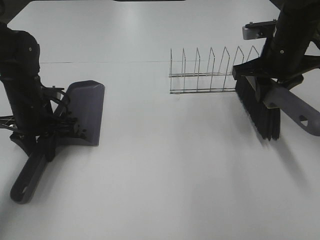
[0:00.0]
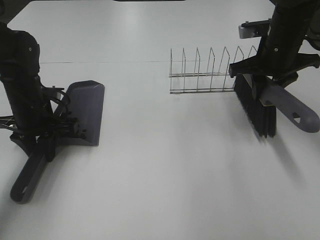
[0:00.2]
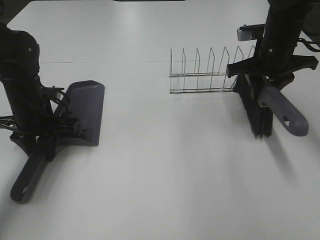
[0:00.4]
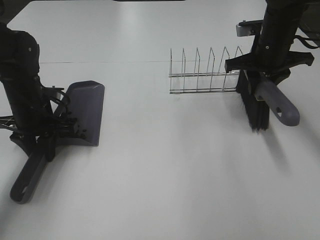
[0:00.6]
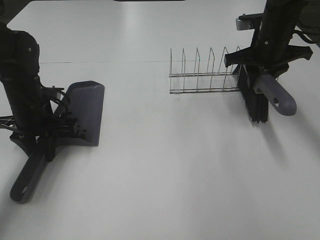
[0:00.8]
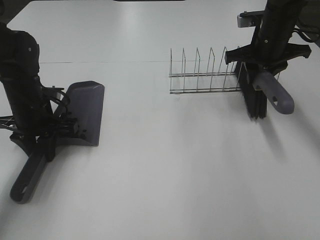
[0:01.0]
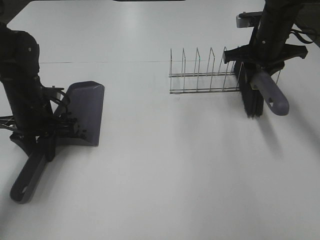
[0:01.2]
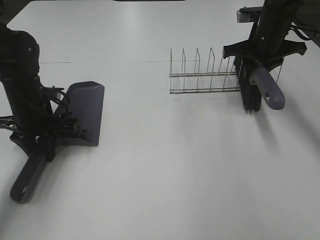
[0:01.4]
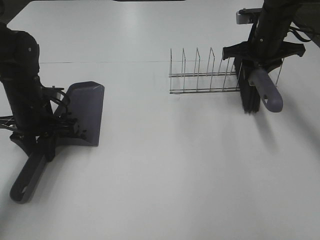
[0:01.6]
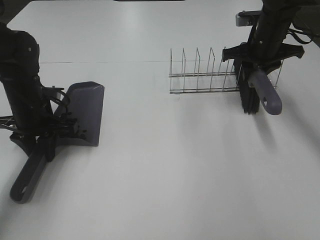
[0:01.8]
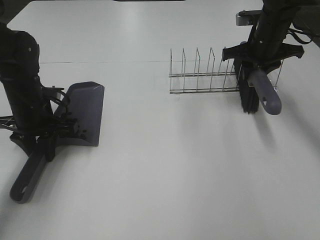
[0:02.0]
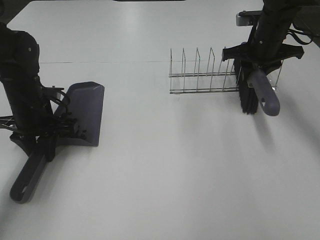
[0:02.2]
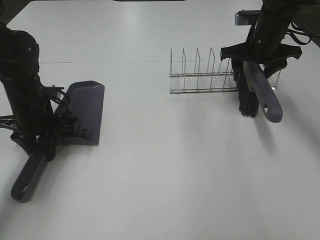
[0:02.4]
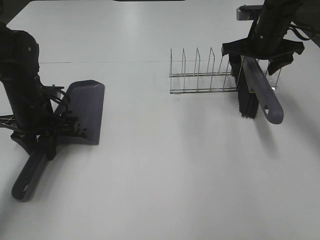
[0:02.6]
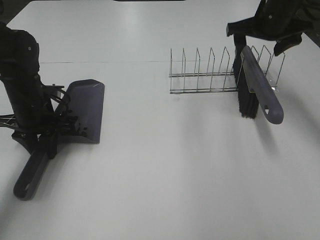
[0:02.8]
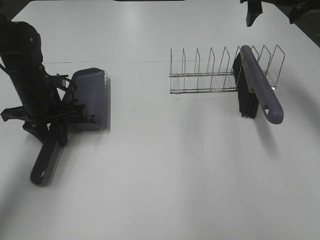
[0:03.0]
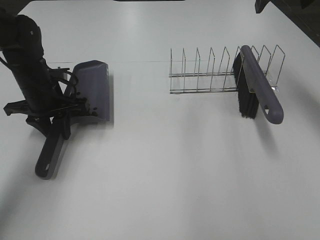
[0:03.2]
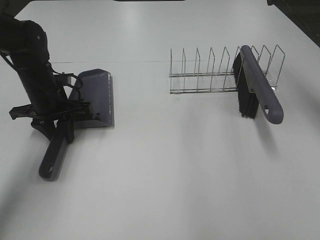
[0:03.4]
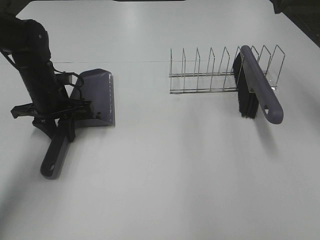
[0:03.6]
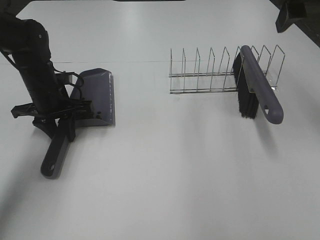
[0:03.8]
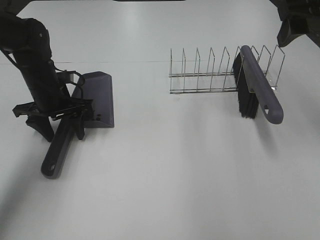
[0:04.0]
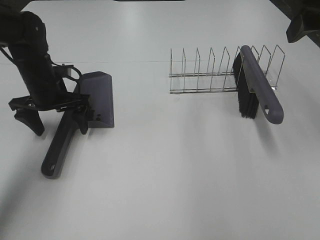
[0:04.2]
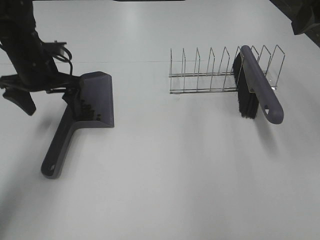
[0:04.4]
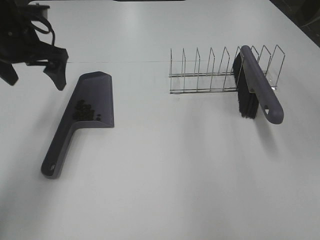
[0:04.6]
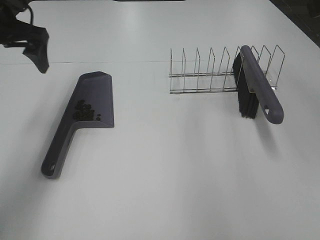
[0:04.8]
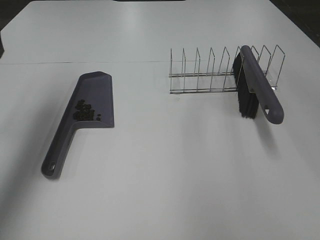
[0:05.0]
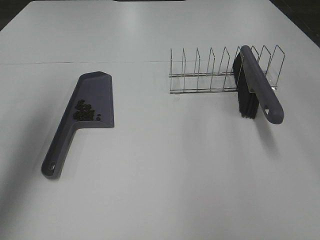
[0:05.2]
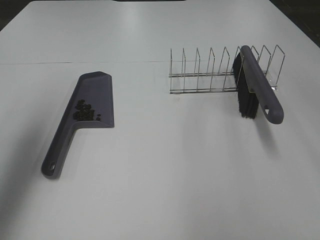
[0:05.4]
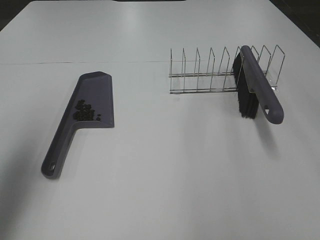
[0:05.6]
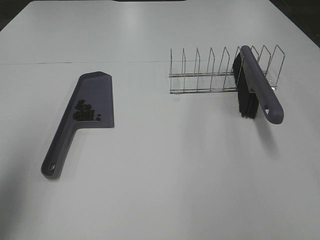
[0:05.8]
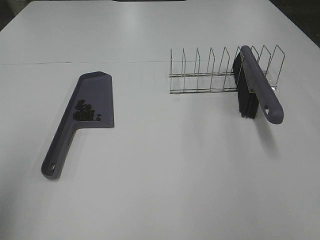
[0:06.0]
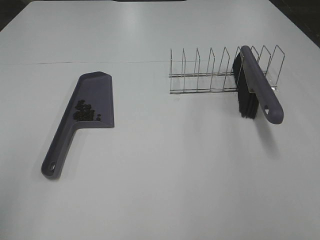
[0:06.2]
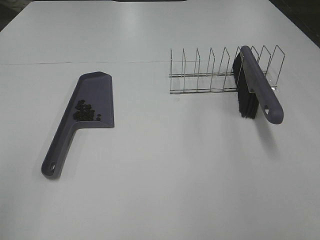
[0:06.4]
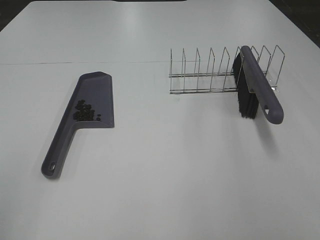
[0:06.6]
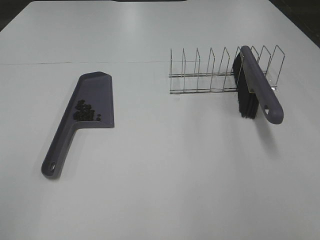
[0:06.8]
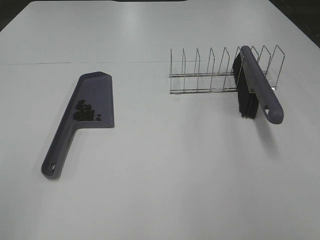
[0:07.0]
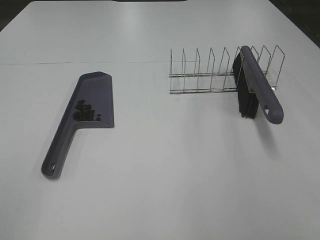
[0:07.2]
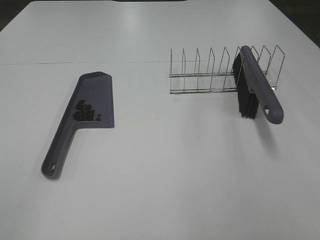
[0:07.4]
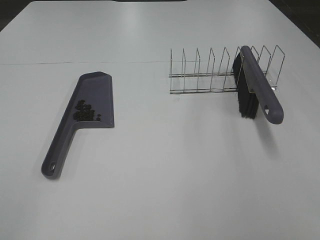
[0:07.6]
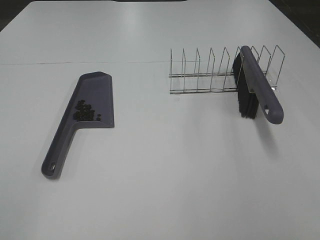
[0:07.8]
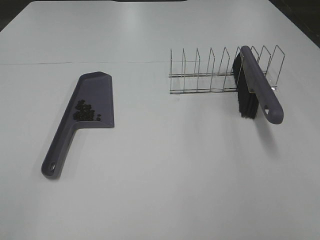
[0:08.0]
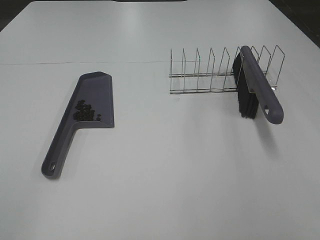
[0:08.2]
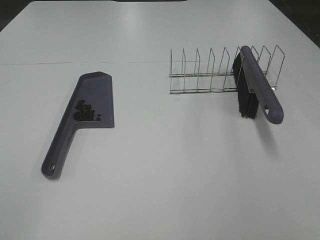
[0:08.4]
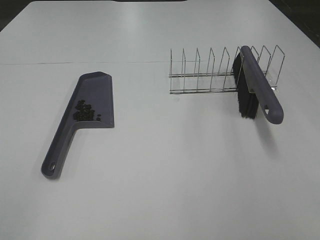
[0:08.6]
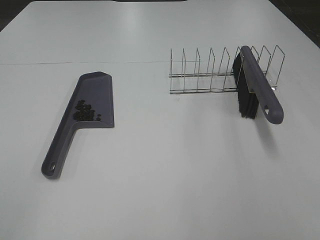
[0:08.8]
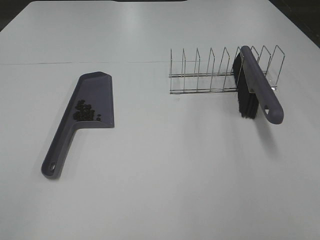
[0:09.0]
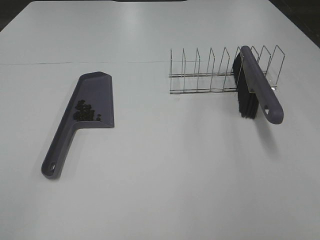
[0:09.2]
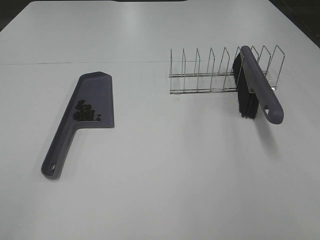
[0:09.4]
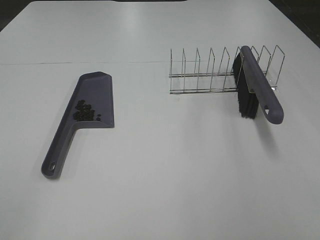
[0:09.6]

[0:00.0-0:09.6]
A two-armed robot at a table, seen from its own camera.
Task of the whole recording: Sweep Coffee Bean.
Step, 0:00.0 to 0:02.4: Right hand:place the broom on the rack.
Step, 0:02.6 to 0:04.2: Left hand:place the dustpan on the table.
0:00.0 to 0:01.6: The right gripper is displaced forward by about 10 cm.
0:01.6 to 0:03.2: The right gripper goes some 15 cm upward, and opens its fingers.
0:03.2 to 0:04.8: The right gripper is displaced backward by some 15 cm. Meanwhile the left gripper heads upward, covering about 15 cm, and opens up.
0:04.8 to 0:06.4: The left gripper heads backward, covering some 35 cm.
0:08.0 to 0:09.6: Both grippers stay put.
